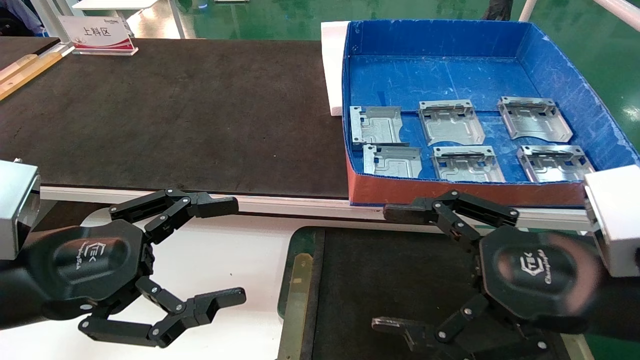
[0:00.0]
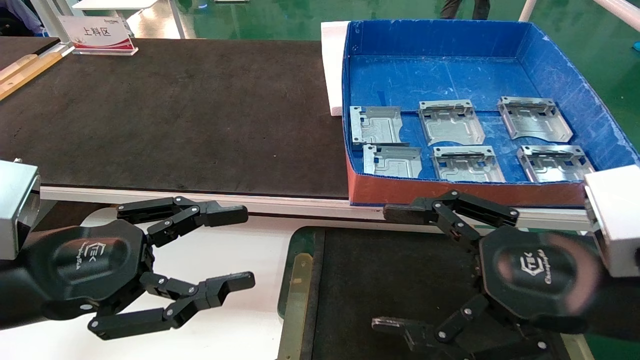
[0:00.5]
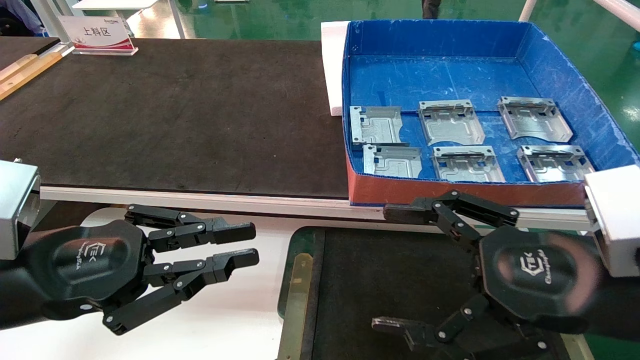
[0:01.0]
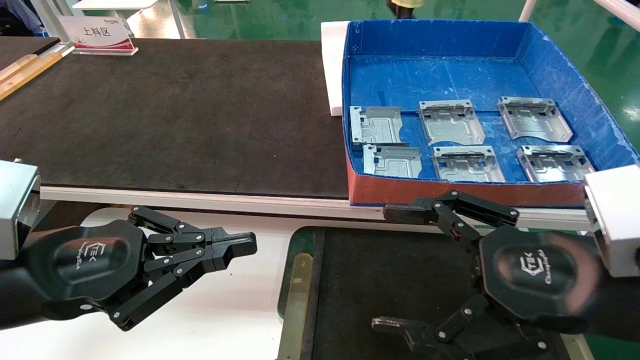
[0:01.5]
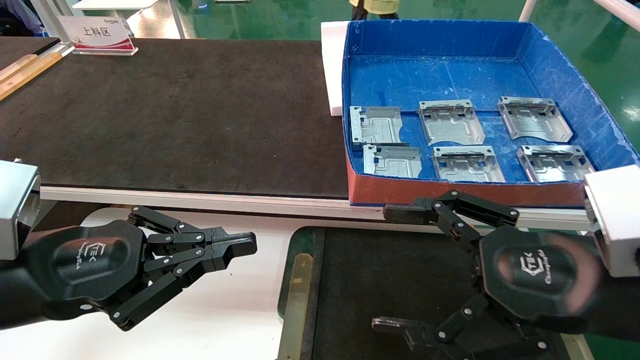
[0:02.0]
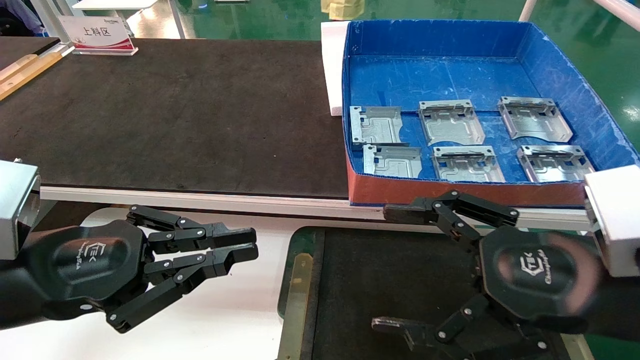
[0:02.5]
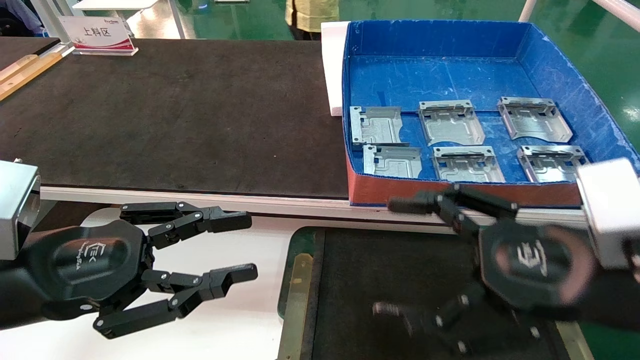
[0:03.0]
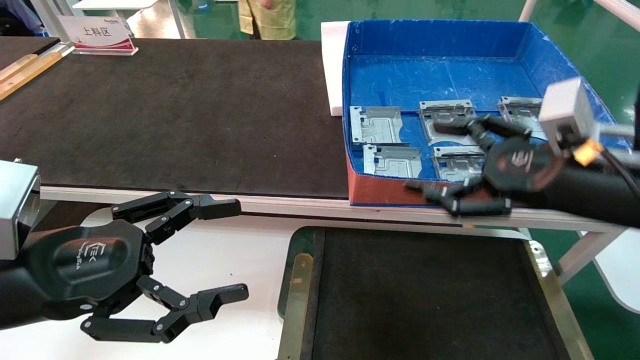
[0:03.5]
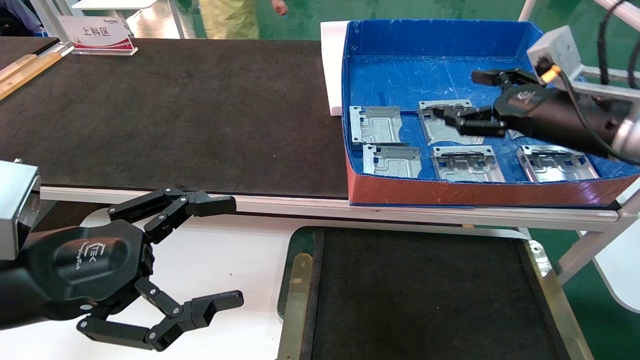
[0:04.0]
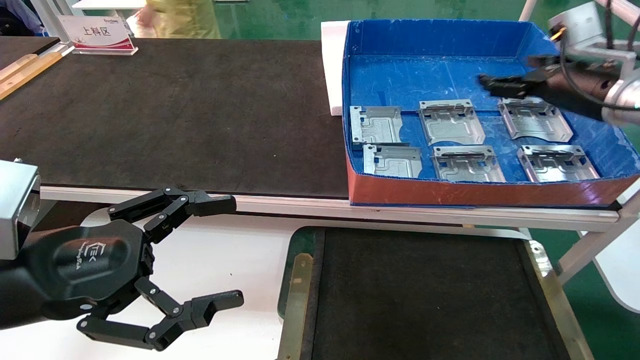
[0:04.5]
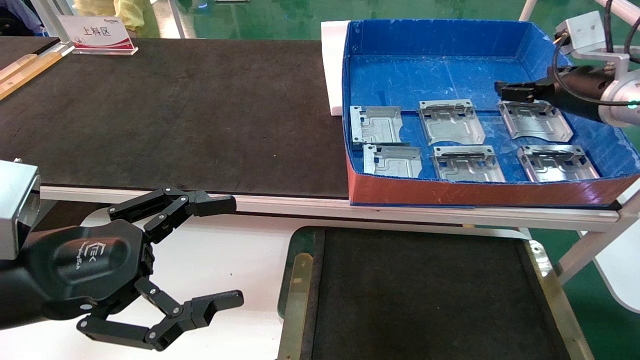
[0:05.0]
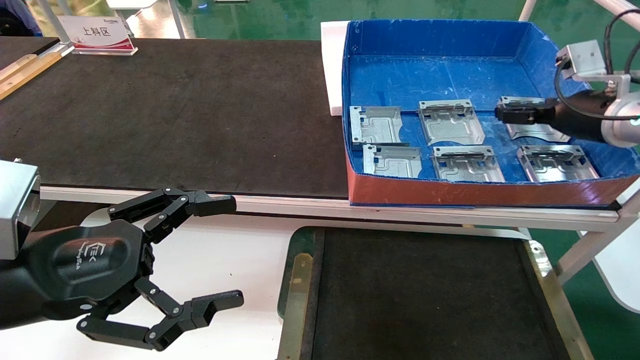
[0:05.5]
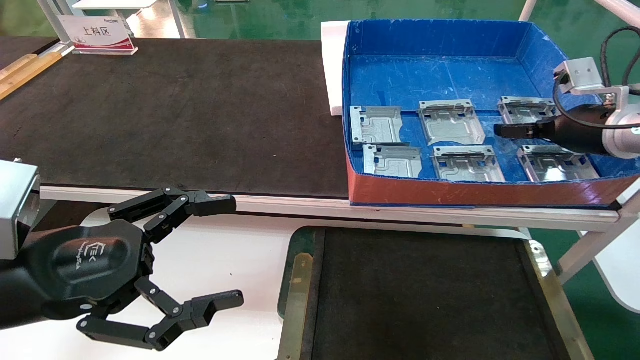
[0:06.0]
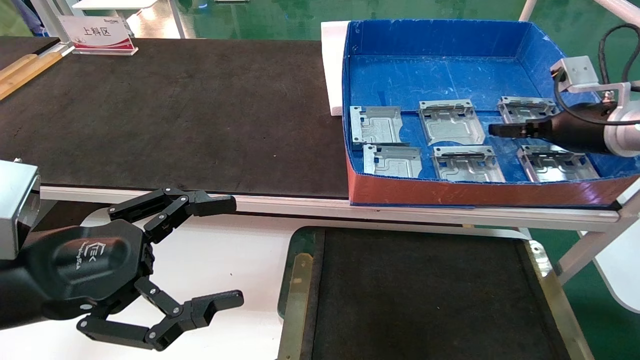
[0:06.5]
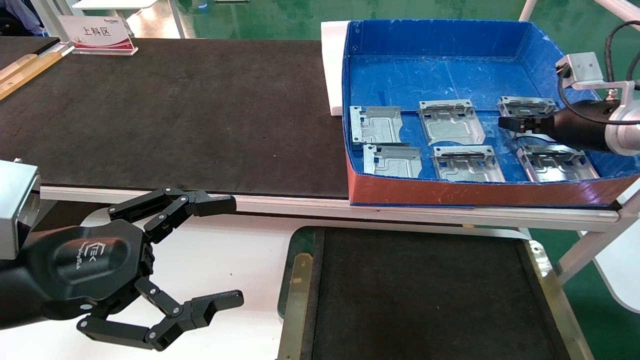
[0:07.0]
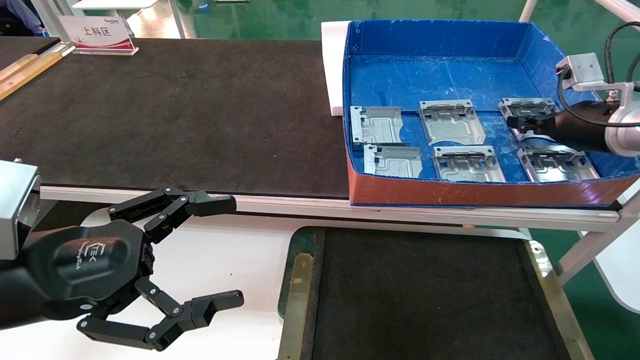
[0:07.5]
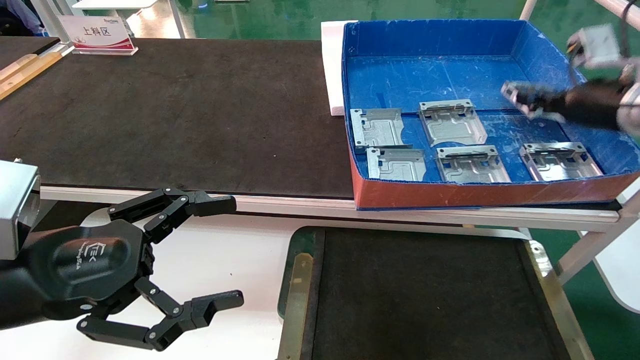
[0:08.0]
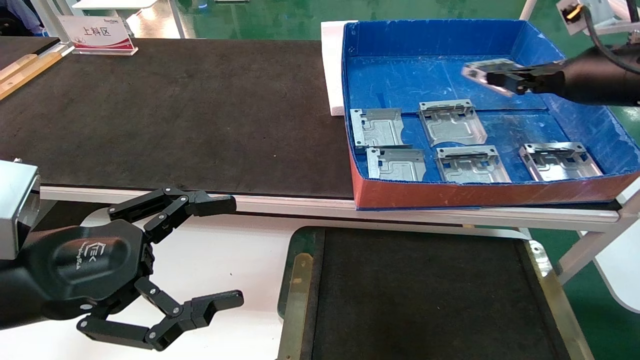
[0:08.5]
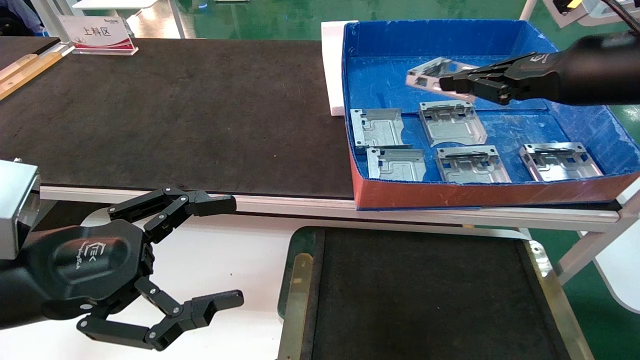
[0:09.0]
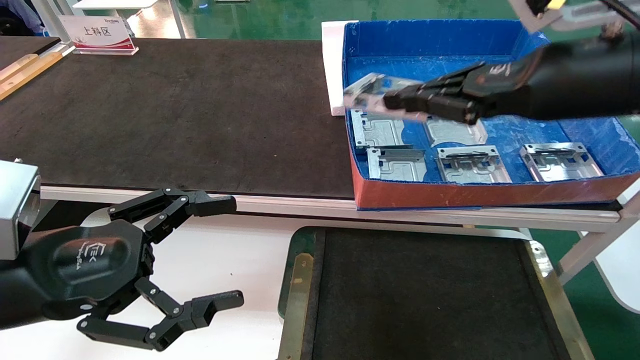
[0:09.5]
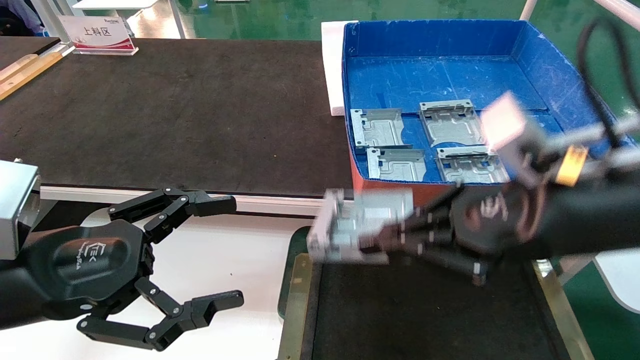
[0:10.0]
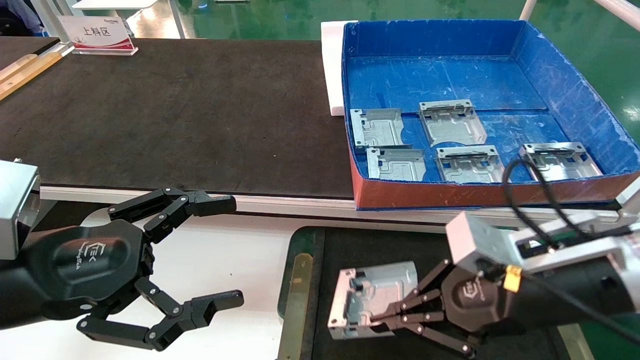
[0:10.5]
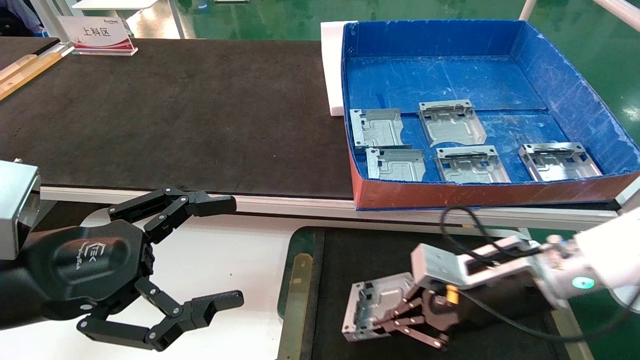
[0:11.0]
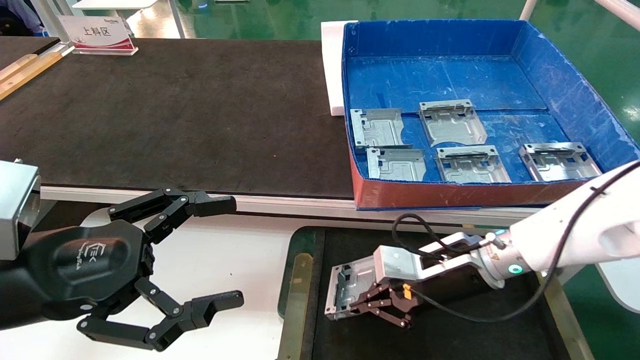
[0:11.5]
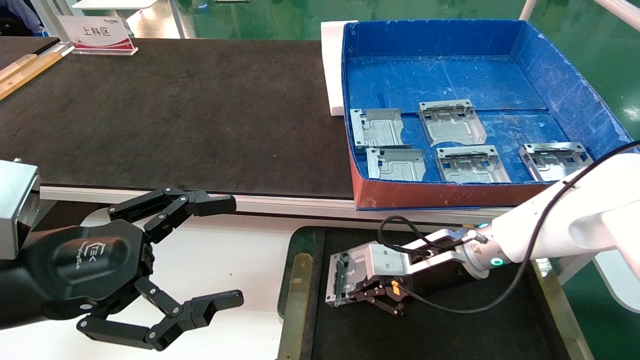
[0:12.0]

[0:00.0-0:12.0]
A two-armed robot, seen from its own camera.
Task of the whole recording: pick up parts and place them into a black container.
Step, 0:03.5 to 0:07.5: Pick up the hard drive bracket from the feeding area.
0:00.0 to 0:02.0: The left gripper closes its fingers.
0:02.0 to 0:04.0: The right gripper is displaced forward, to the right and upward by approximately 20 cm; the left gripper opens its fingers.
0:04.0 to 0:06.0: The right gripper heads forward and to the right, covering some 10 cm.
0:06.0 to 0:08.0: The right gripper closes its fingers.
0:08.0 to 0:10.0: The right gripper heads backward and to the left, covering approximately 25 cm.
0:10.0 to 0:12.0: The right gripper is displaced forward and downward by roughly 20 cm.

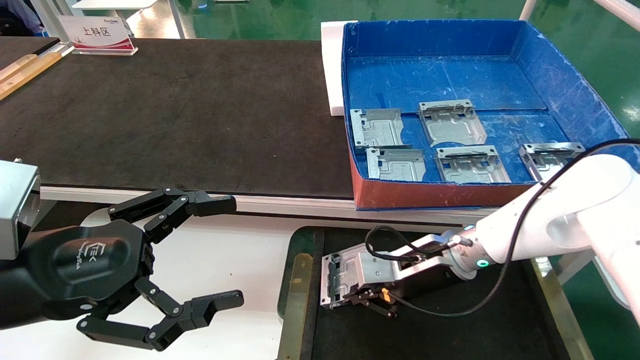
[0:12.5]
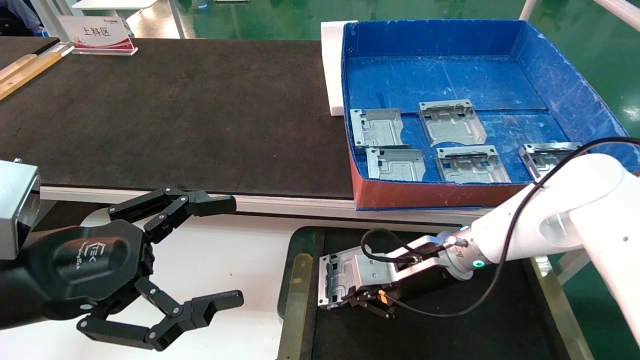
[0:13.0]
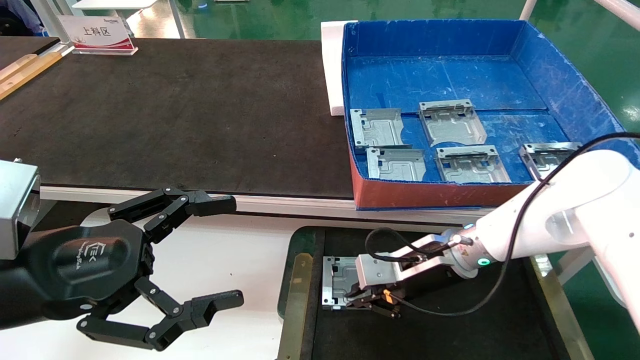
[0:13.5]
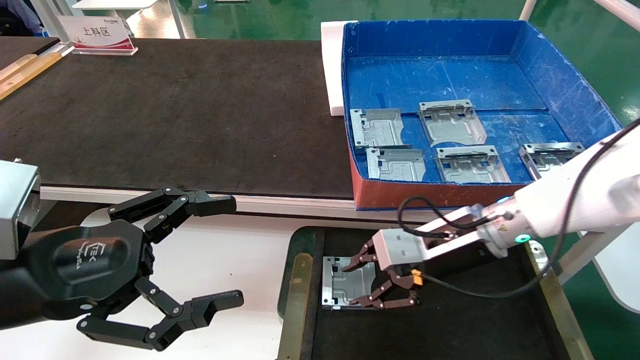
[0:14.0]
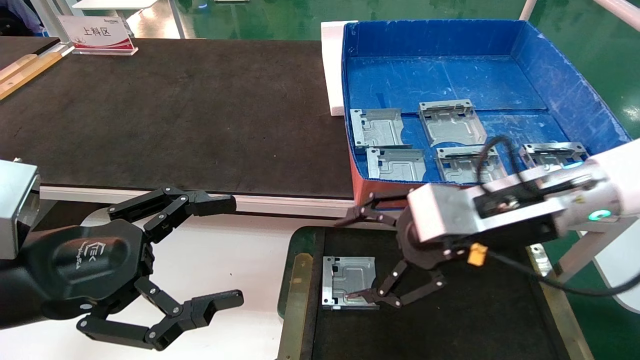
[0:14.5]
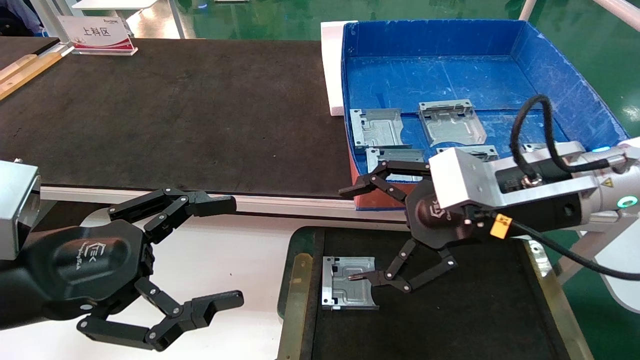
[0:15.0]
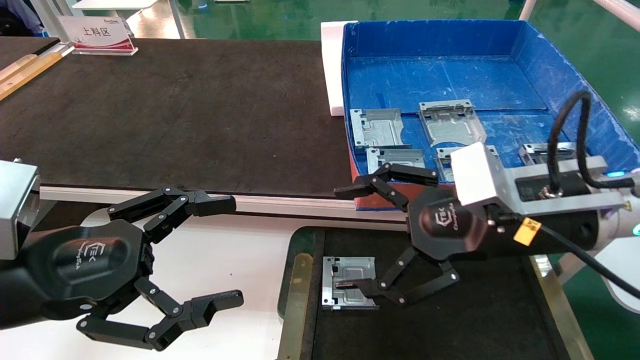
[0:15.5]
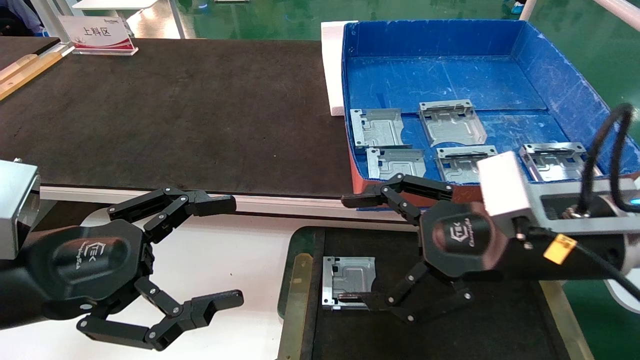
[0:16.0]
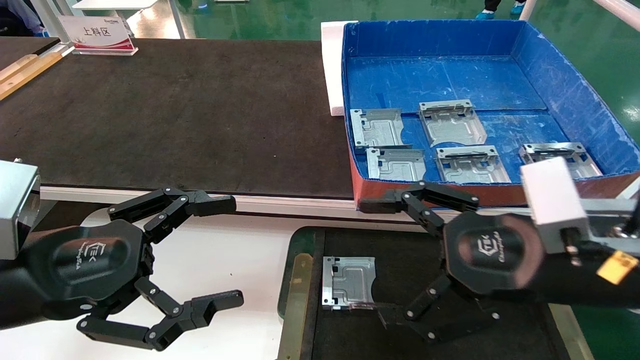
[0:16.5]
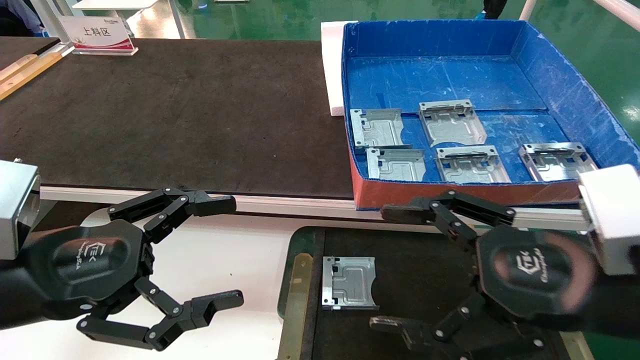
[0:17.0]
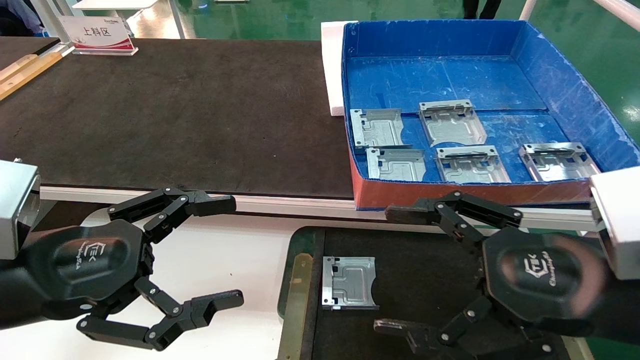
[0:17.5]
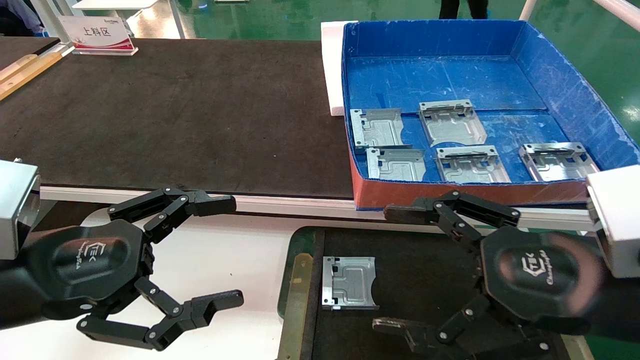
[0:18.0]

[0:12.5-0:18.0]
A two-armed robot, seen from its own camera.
Task of the whole recording: pick up parts and place them into a black container.
0:12.5 to 0:14.5: The right gripper shifts roughly 15 cm upward and backward, and opens up.
0:14.5 to 0:16.0: The right gripper is displaced backward by about 5 cm.
0:16.0 to 0:18.0: The right gripper moves backward, roughly 5 cm.

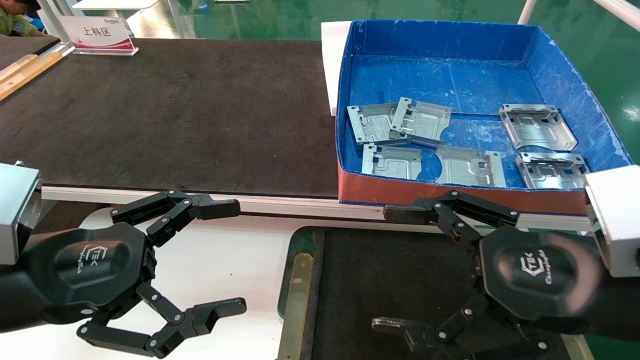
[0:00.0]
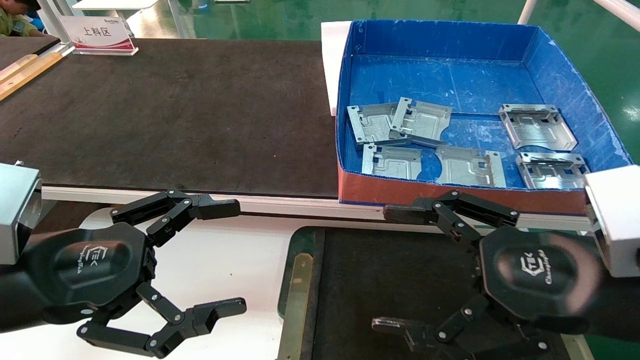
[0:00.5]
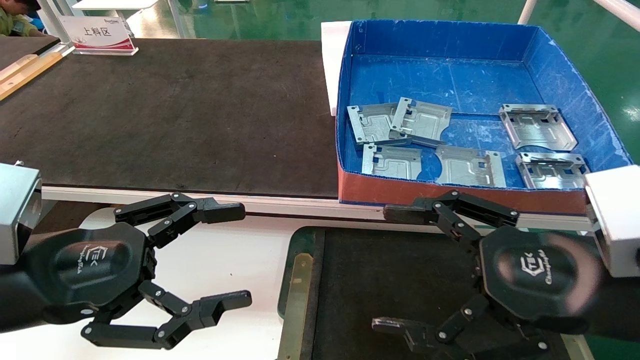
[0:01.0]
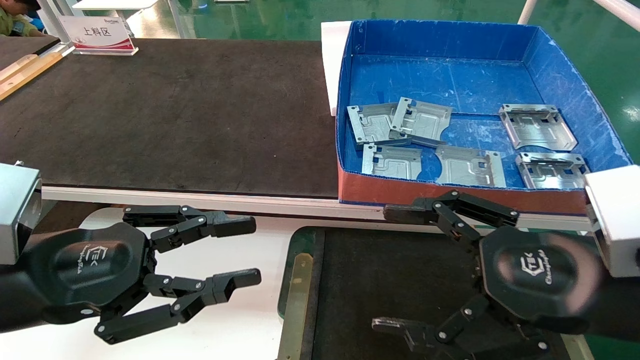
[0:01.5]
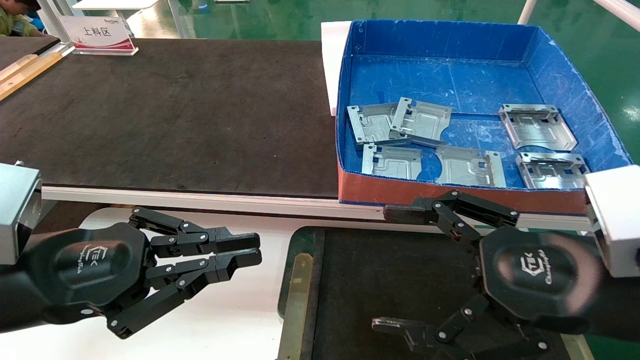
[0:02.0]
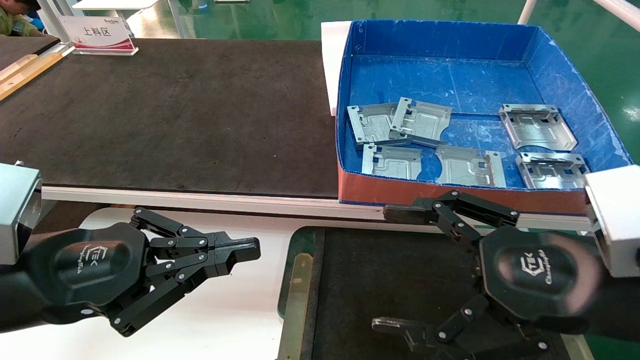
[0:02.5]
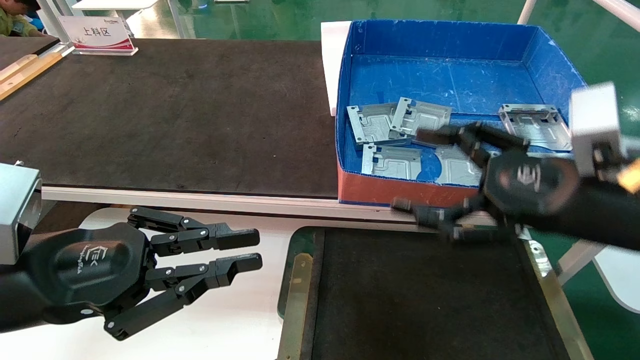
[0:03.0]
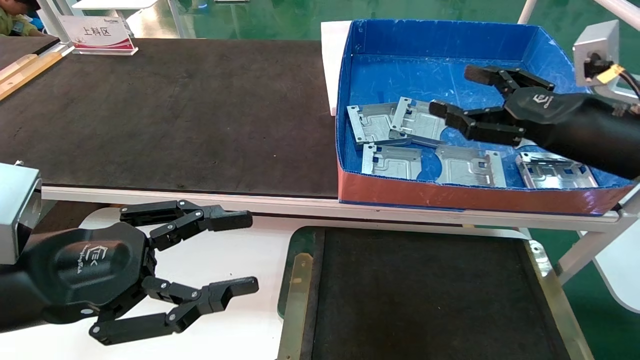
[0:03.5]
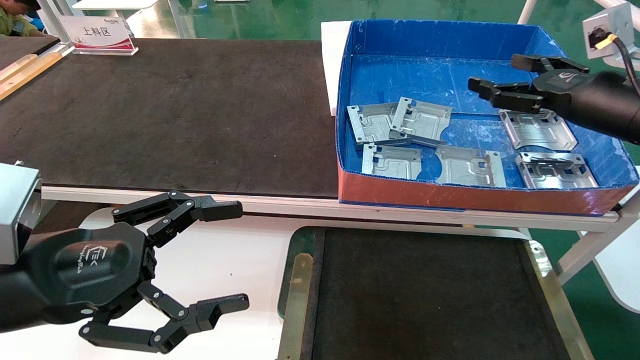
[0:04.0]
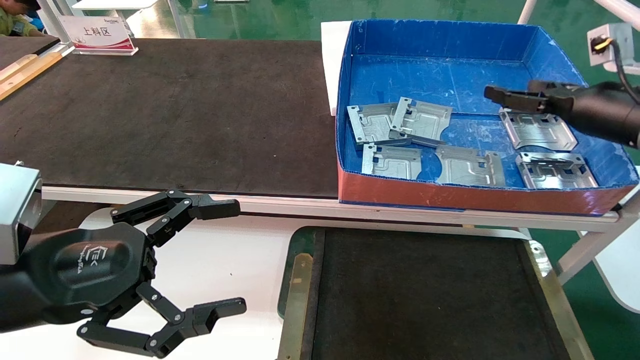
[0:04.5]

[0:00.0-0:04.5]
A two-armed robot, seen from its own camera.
Task of the whole recording: pick up parts and place them into a black container.
0:00.0 to 0:02.0: The left gripper closes up.
0:02.0 to 0:04.5: The right gripper goes about 25 cm forward and to the right; the left gripper opens.
